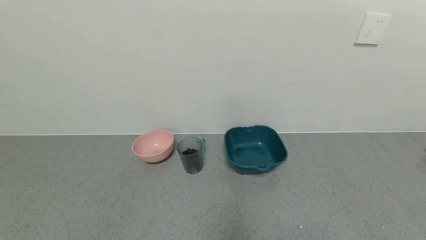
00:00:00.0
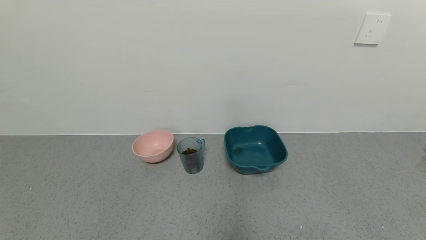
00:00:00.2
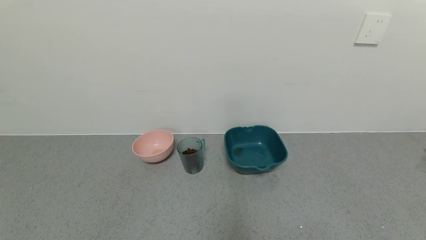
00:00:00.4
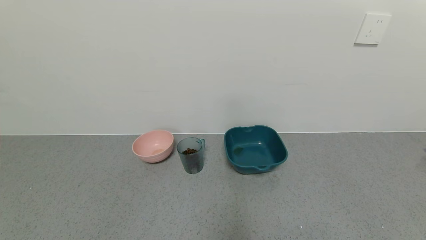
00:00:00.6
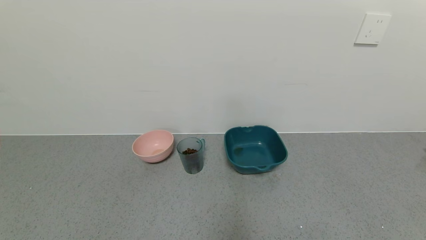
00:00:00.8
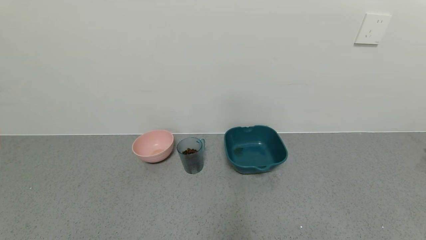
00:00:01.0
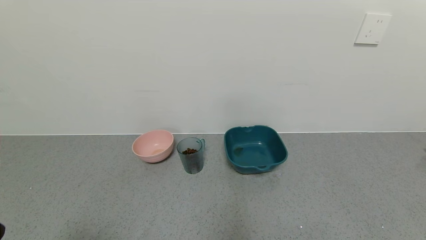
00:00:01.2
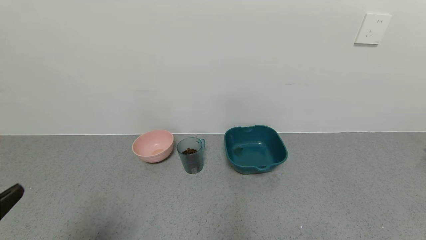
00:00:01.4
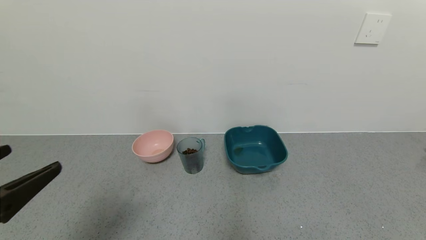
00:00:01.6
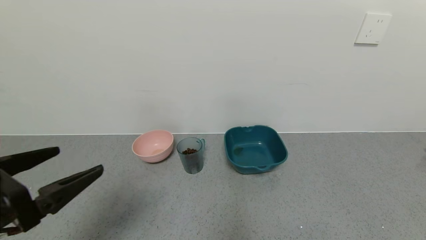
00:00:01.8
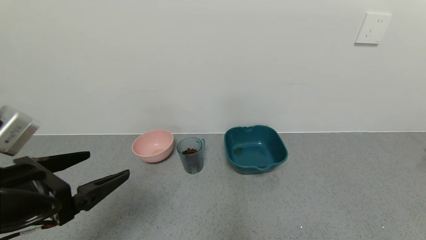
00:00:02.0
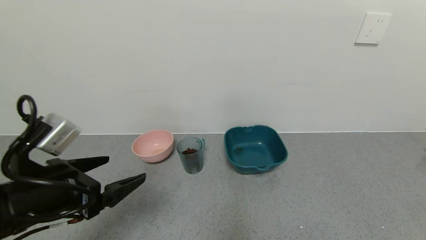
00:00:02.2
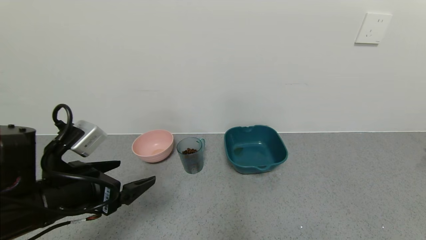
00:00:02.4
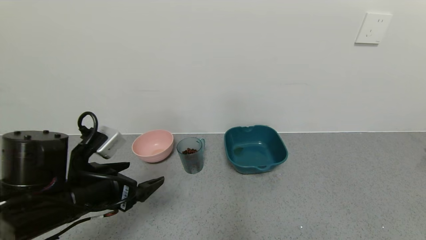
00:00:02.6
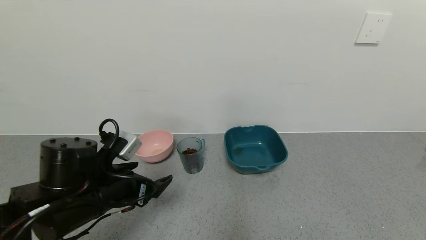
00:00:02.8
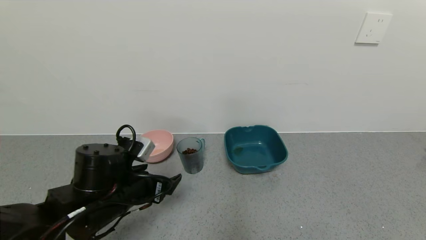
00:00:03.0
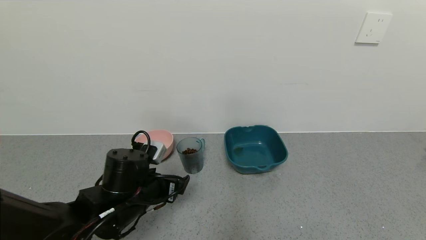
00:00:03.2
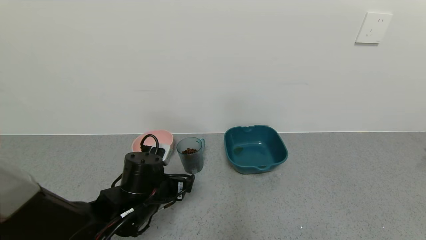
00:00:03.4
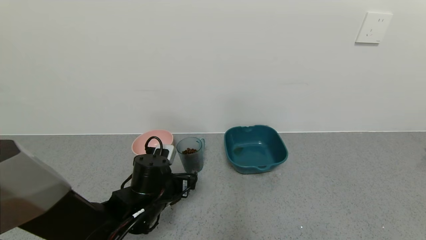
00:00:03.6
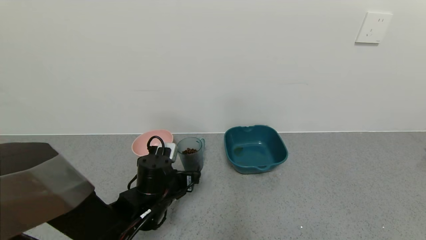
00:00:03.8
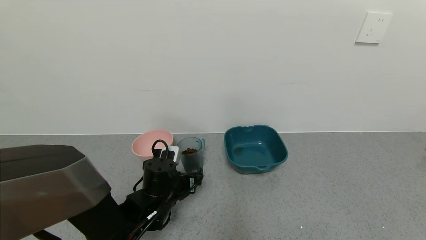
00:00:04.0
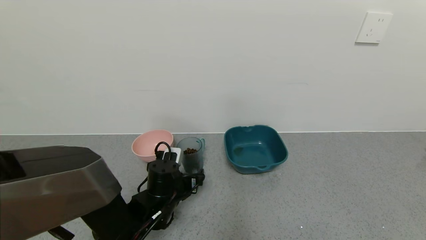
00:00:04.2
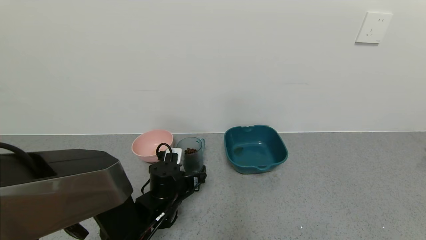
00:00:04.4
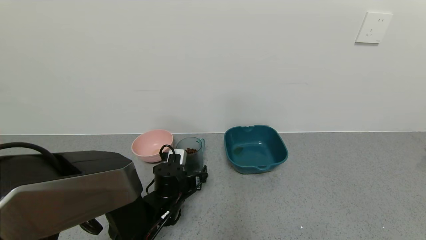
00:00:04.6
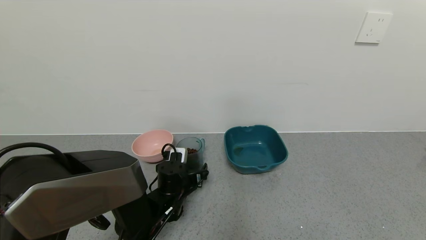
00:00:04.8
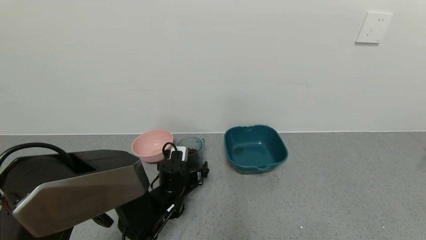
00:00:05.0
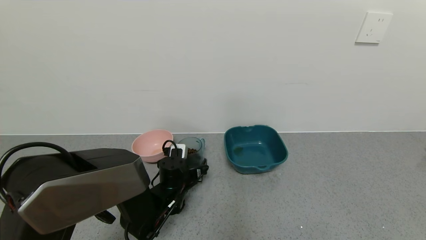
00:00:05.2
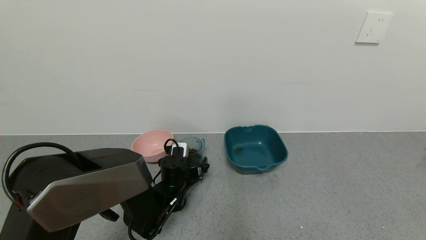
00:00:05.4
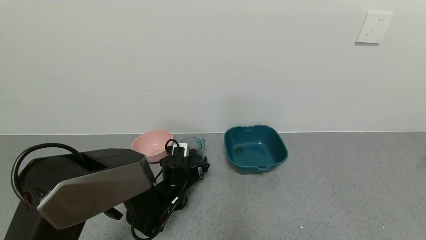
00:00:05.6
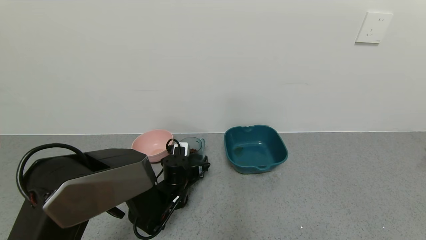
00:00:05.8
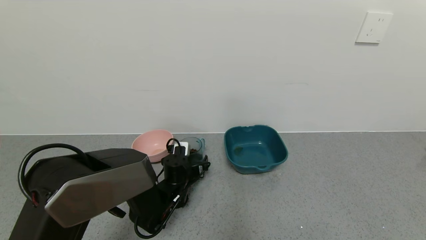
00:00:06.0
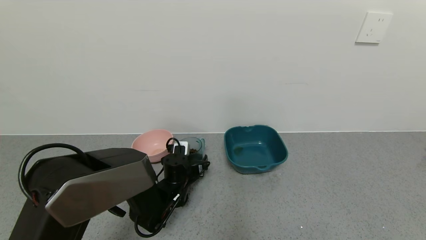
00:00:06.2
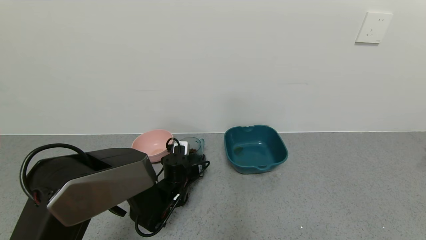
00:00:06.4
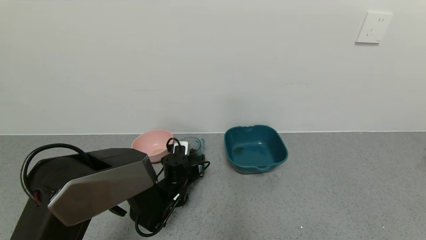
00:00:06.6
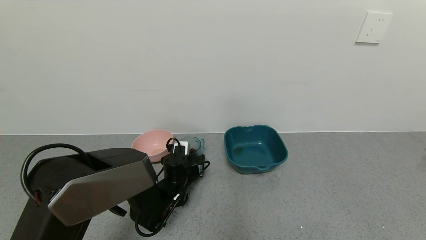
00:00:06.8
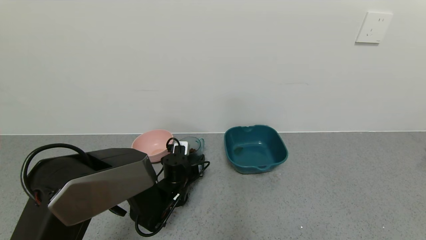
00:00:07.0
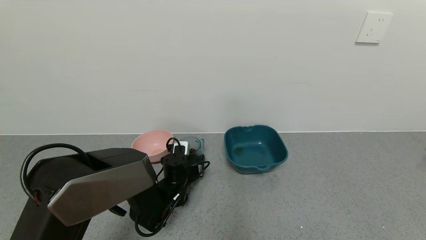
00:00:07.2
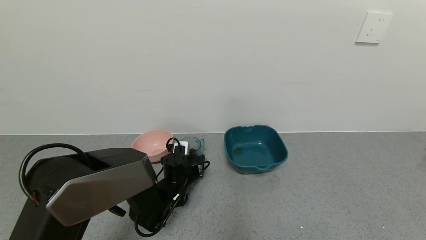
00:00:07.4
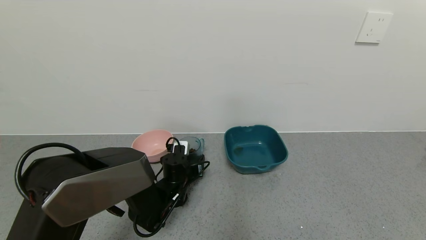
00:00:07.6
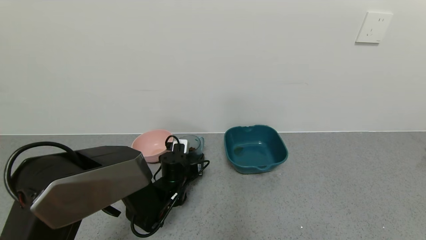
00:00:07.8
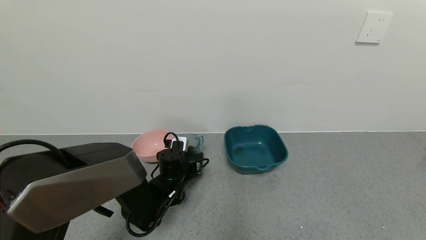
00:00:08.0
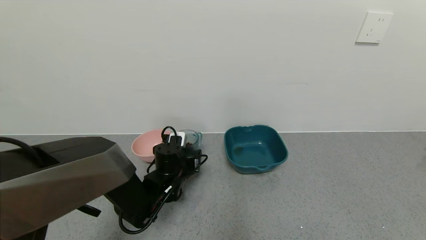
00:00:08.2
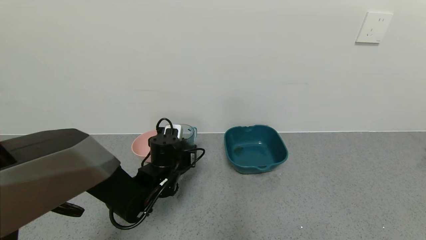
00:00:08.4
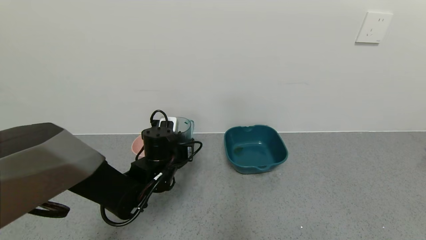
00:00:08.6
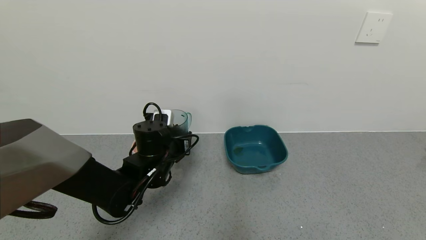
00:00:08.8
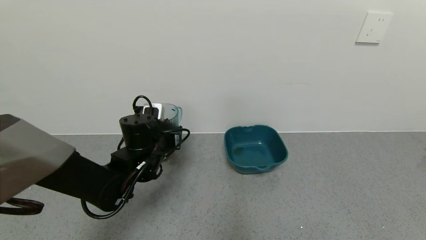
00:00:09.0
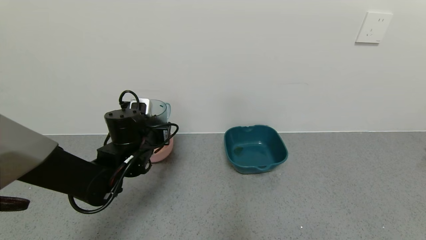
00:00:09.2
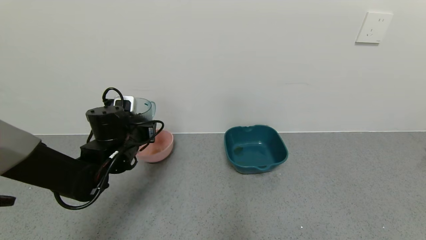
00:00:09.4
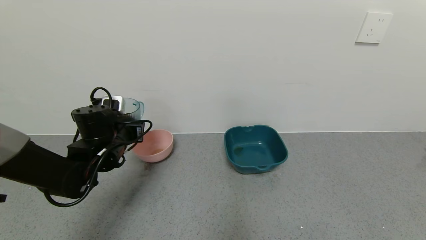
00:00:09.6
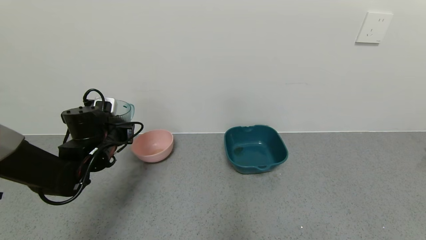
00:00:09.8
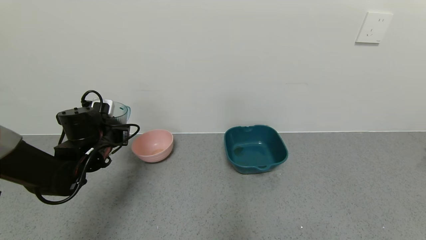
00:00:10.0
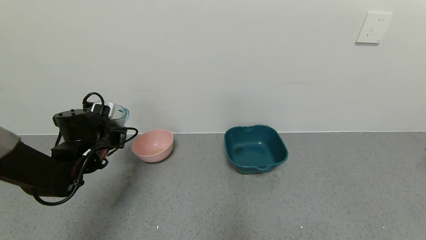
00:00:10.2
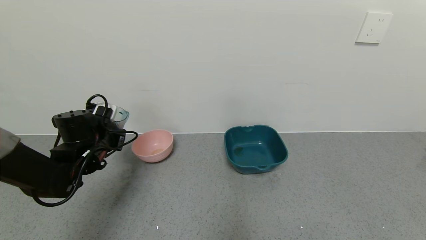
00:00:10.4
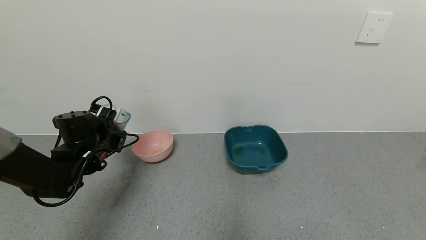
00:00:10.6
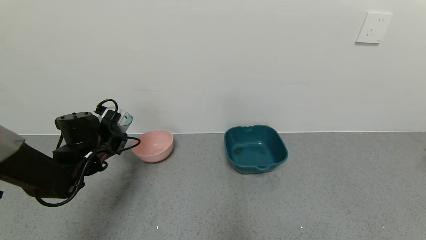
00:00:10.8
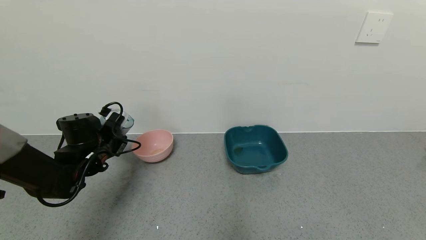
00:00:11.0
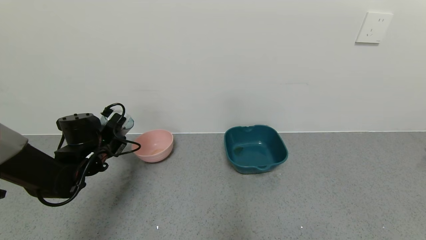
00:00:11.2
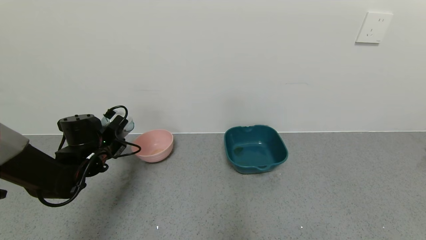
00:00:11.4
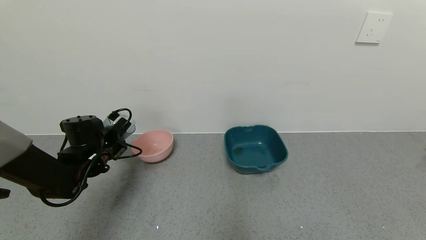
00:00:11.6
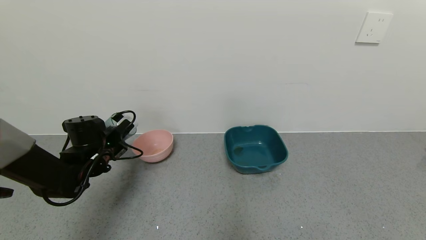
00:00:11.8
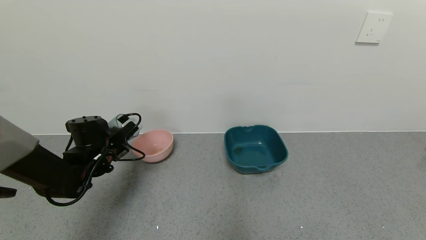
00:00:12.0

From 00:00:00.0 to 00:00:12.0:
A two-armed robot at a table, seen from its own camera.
Task of the whole recording: use a gripper to pick up the cup and pour the solid into a bowl or tray.
Step, from 00:00:00.0 to 00:00:06.6: Grasp the glass of coffee beans with the left gripper.
From 00:00:00.0 to 00:00:01.6: The left gripper moves upward and forward, some 20 cm.
From 00:00:01.6 to 00:00:03.0: The left gripper travels forward, downward and to the right by approximately 20 cm.
From 00:00:03.0 to 00:00:04.4: The left gripper travels downward, forward and to the right by some 15 cm.
From 00:00:04.4 to 00:00:06.0: The left gripper is displaced forward by some 5 cm.
From 00:00:06.0 to 00:00:07.6: The left gripper closes its fingers.
From 00:00:07.6 to 00:00:09.0: The left gripper goes approximately 10 cm upward.
From 00:00:09.0 to 00:00:10.4: The left gripper is displaced to the left by some 15 cm.

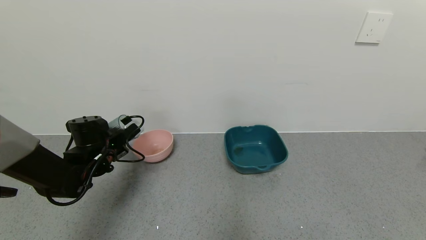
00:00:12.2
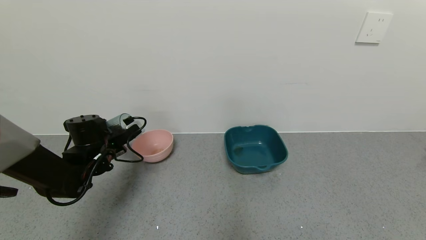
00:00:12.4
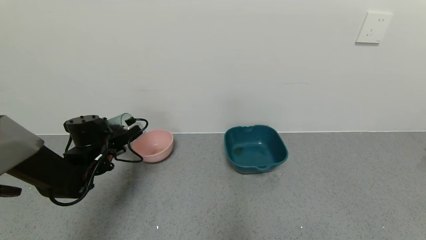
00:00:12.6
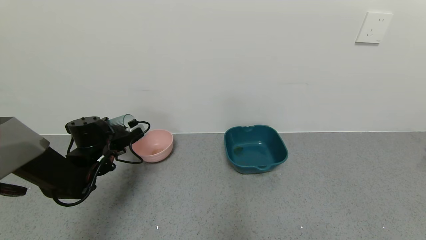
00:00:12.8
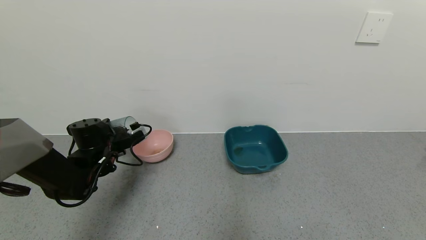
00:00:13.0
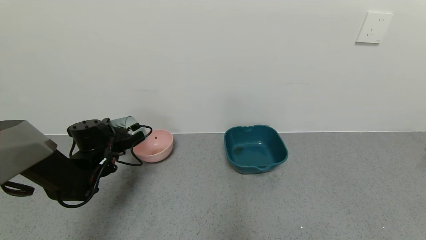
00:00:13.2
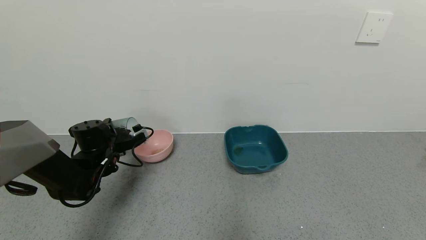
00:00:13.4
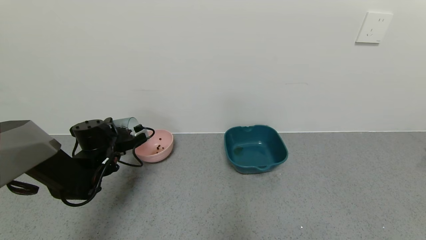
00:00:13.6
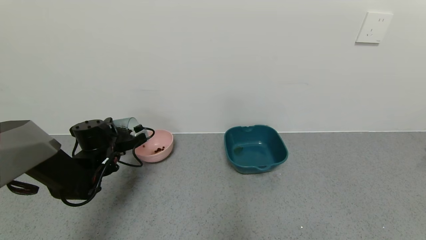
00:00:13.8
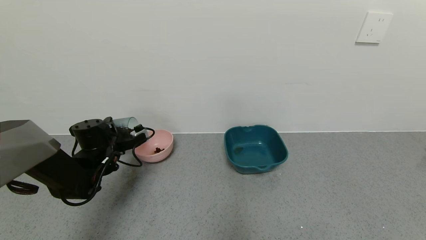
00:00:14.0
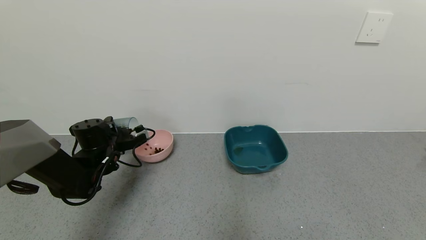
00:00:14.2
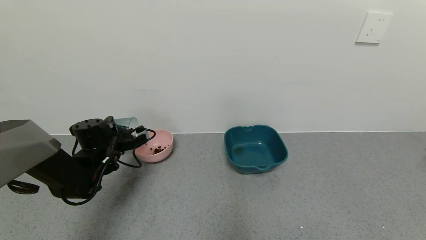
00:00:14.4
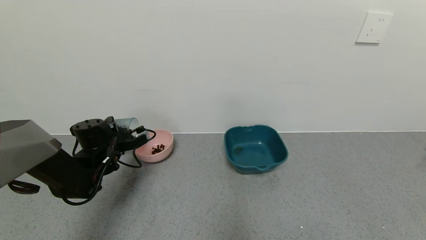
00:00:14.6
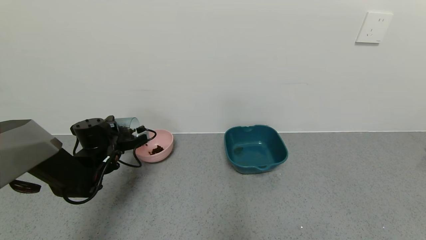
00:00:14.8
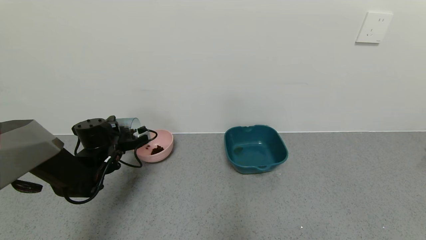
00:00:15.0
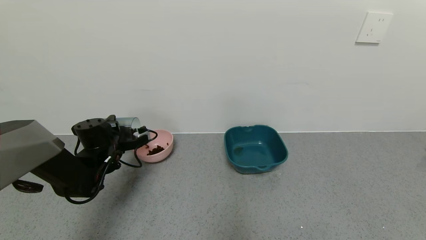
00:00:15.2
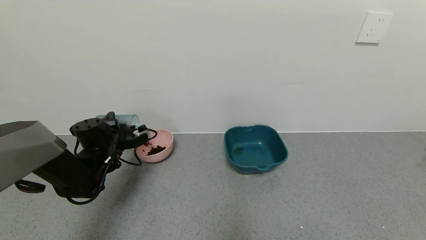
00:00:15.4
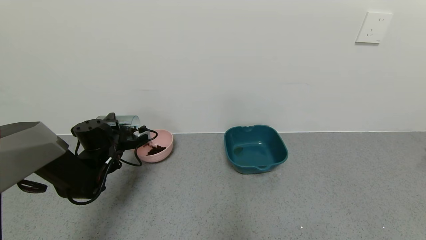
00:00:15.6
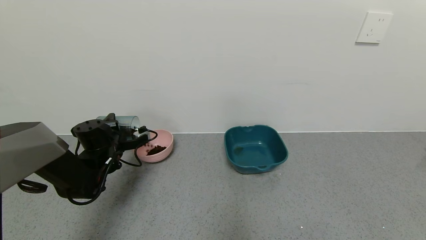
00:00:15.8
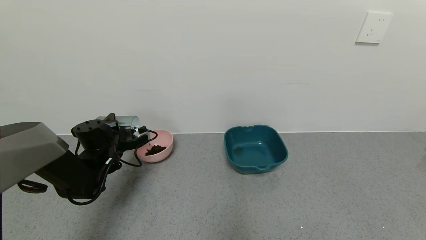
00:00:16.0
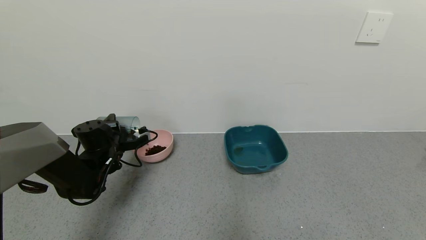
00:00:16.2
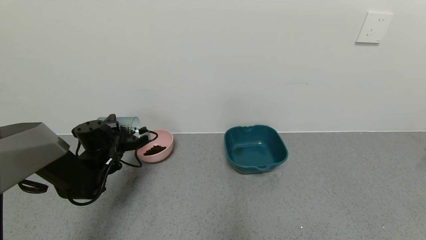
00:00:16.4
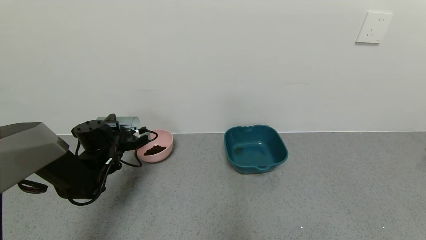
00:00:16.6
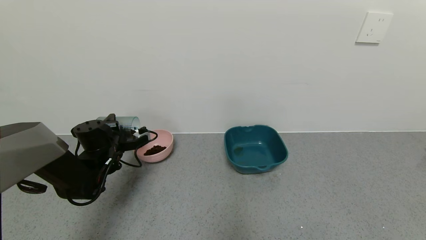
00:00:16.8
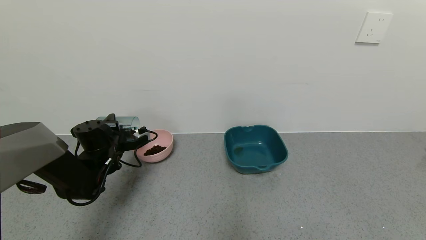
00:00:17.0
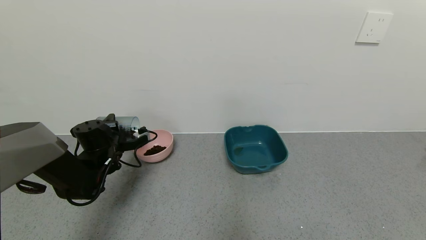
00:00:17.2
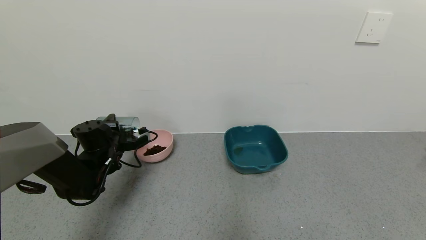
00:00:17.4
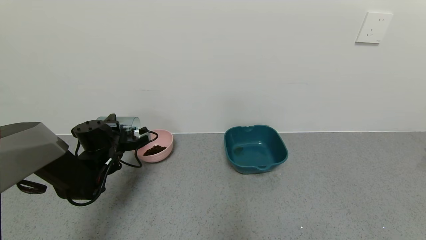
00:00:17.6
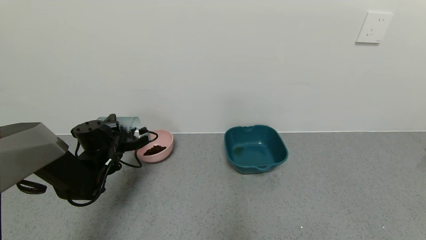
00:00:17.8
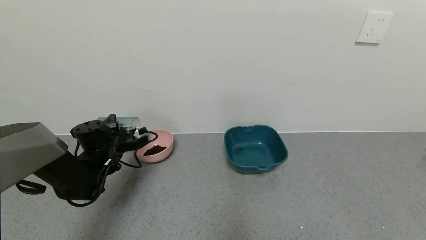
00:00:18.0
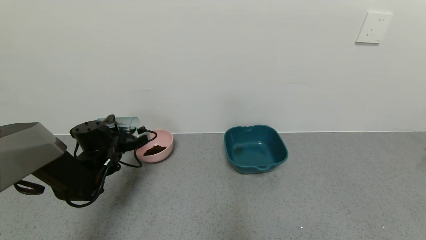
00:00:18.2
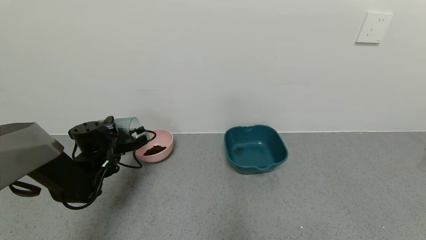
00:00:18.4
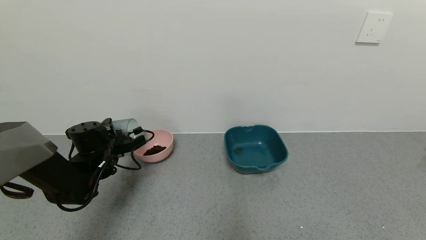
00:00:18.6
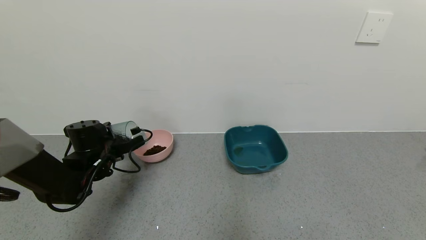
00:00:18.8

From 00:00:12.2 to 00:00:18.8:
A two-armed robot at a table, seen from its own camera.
Task of the whole recording: use a gripper to pick up the cup and pour the solid into a bowl or tray.
From 00:00:13.8 to 00:00:15.4: There are only small adjustments of the grippers.
From 00:00:15.4 to 00:00:17.2: The two grippers keep their place.
From 00:00:17.2 to 00:00:18.8: The grippers stay close to where they were, moving slightly.
